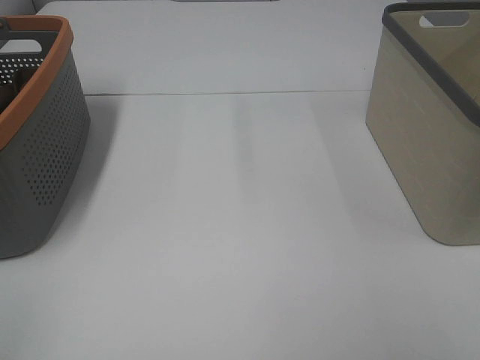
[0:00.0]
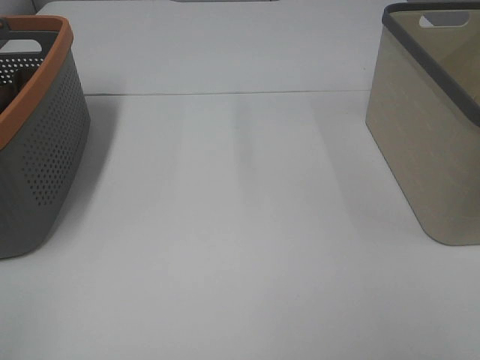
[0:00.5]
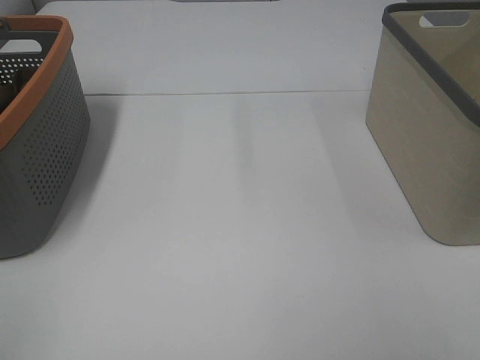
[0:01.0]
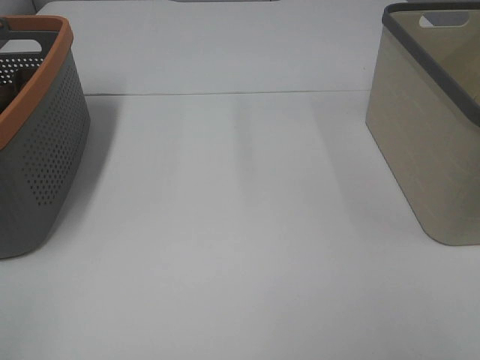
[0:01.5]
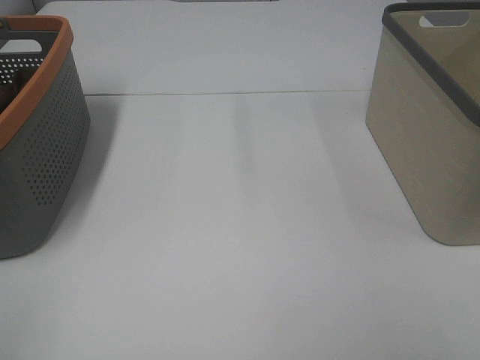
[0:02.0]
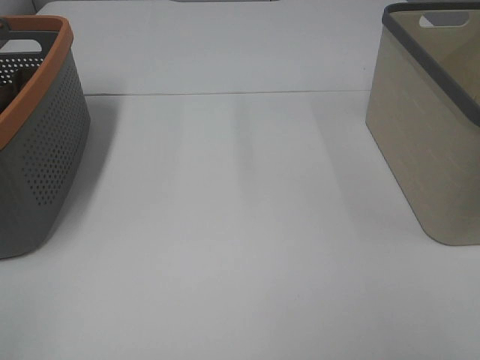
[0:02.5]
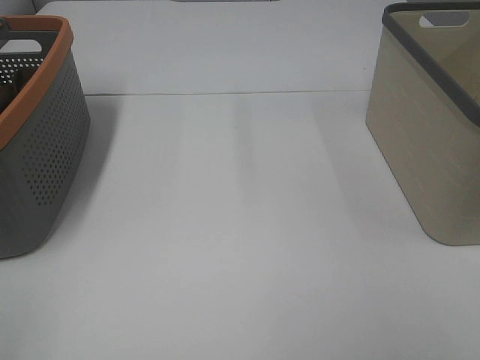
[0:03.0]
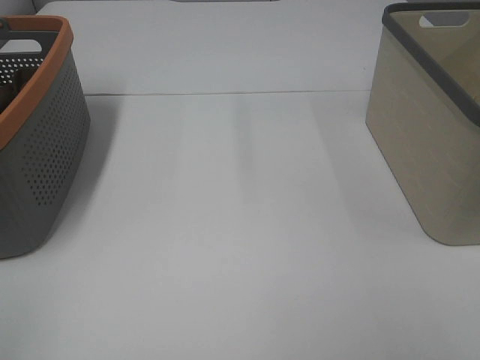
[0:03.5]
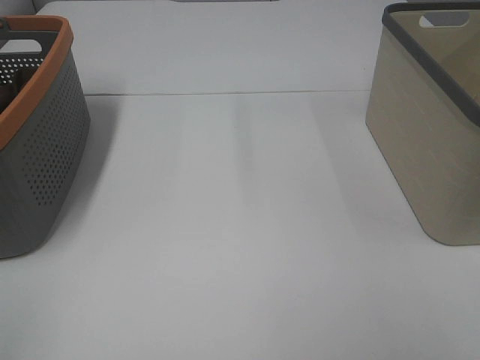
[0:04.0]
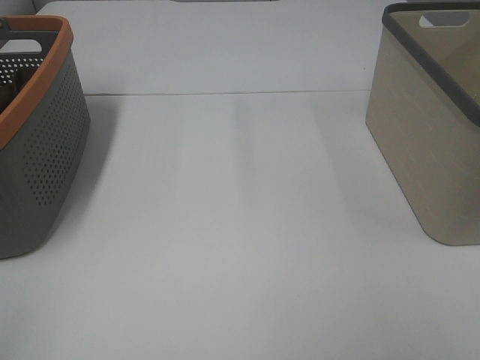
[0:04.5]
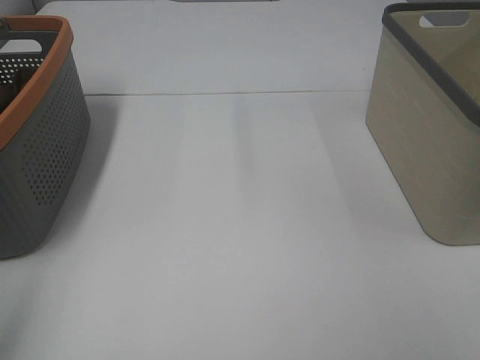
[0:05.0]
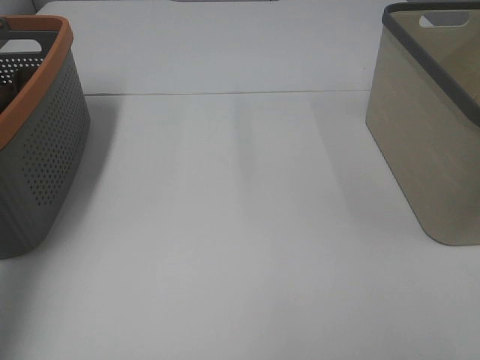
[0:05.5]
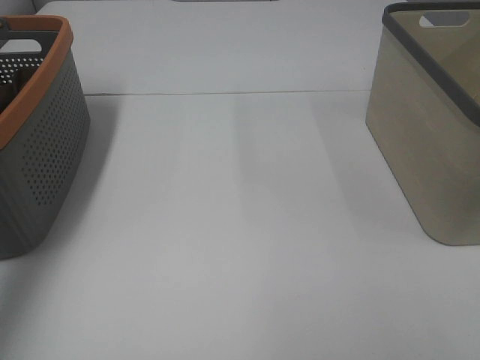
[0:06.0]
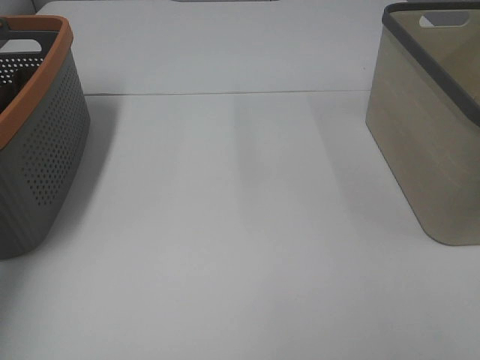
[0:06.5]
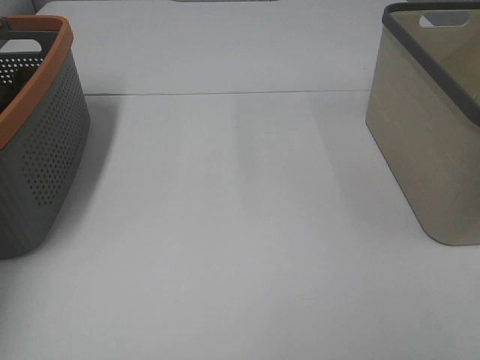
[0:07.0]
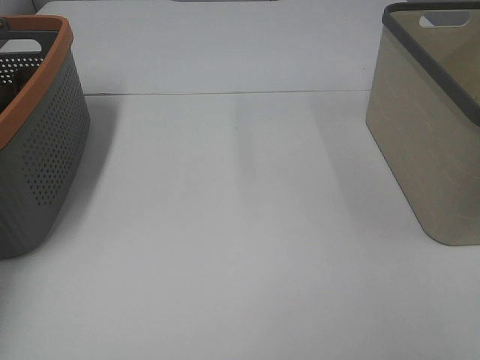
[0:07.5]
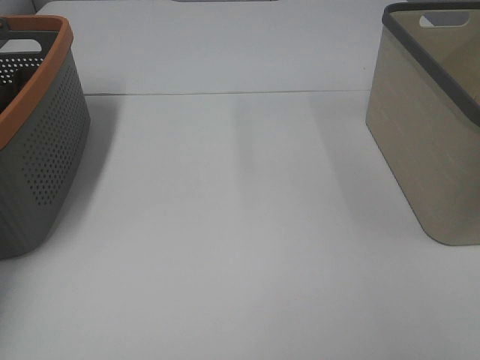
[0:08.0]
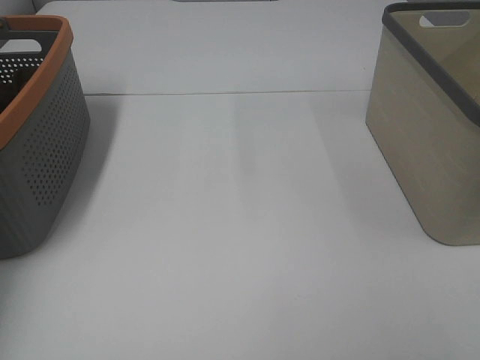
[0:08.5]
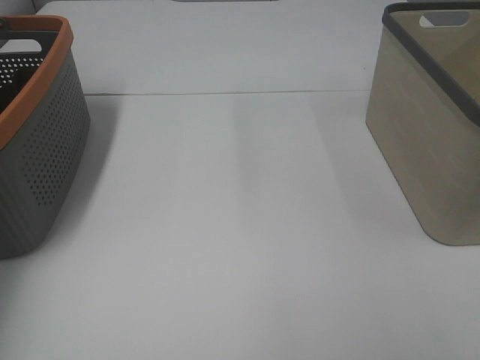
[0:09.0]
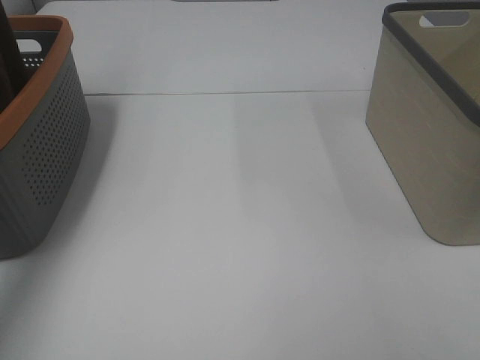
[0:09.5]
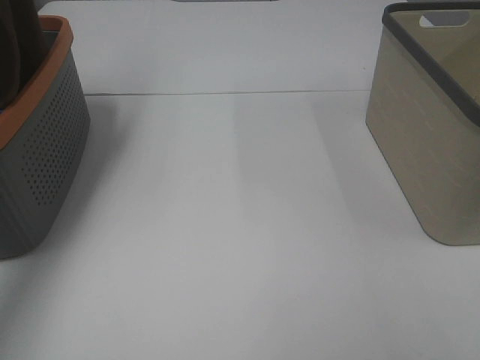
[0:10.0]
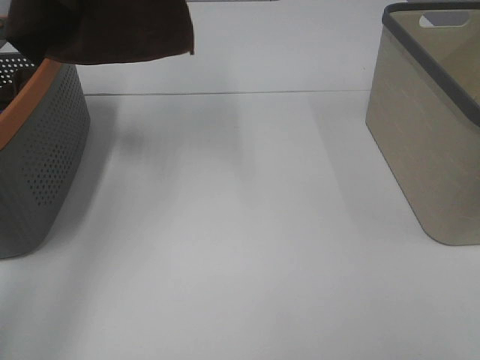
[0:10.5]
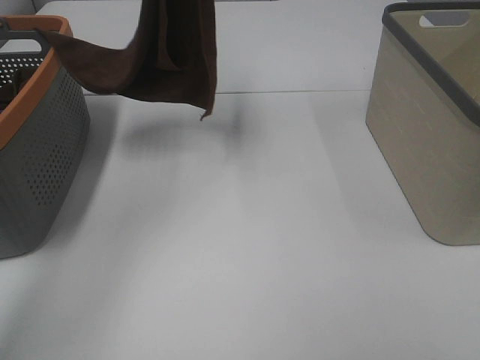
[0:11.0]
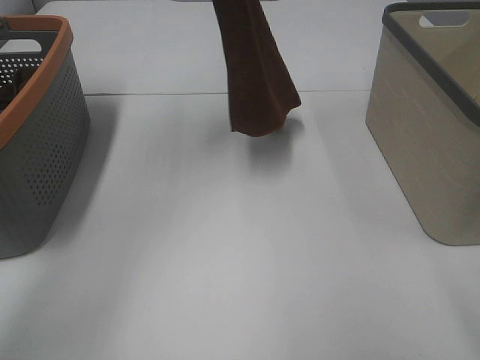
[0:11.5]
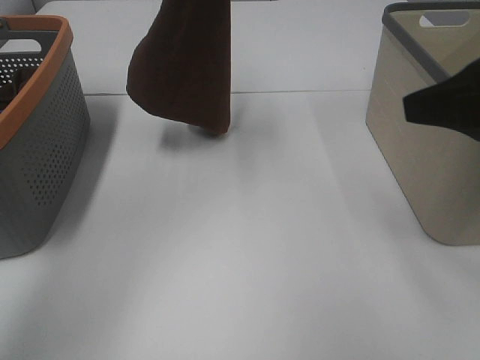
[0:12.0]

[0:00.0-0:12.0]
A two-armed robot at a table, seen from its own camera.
Task of the whole recording: Remove the towel and place it.
0:00.0 to 0:04.0: Both grippers stay about where they are.
0:04.0 to 0:06.0: The left gripper is displaced forward by about 35 cm.
0:06.0 to 0:08.0: The left gripper goes approximately 15 cm downward, forward and to the left, and closes up.
0:08.0 to 0:10.0: The left gripper heads upward, covering some 30 cm.
0:10.0 to 0:12.0: The right gripper travels forward by roughly 20 cm. Meanwhile the left gripper is displaced to the right and downward by roughly 20 cm.

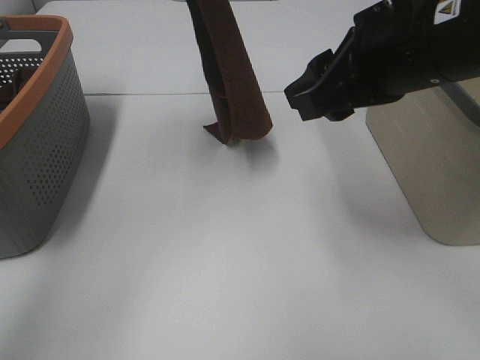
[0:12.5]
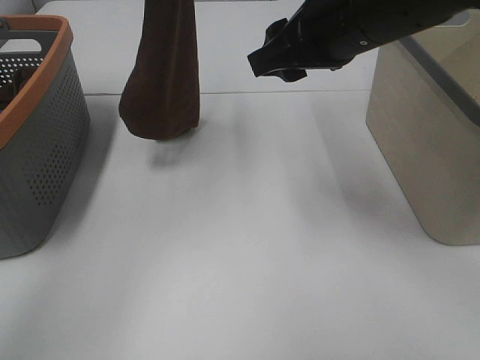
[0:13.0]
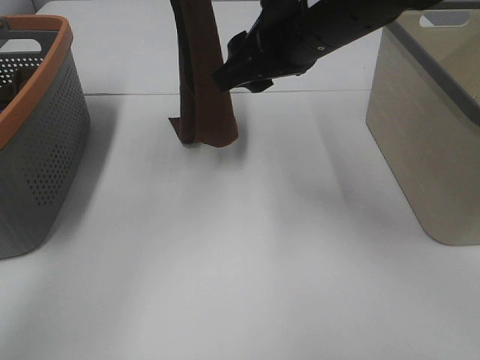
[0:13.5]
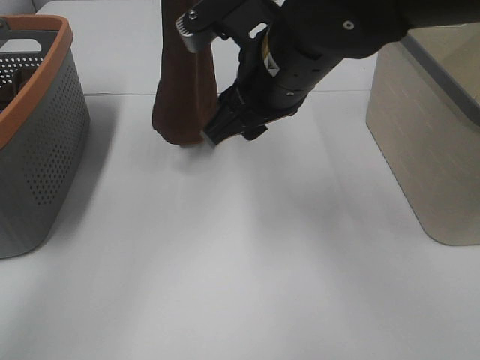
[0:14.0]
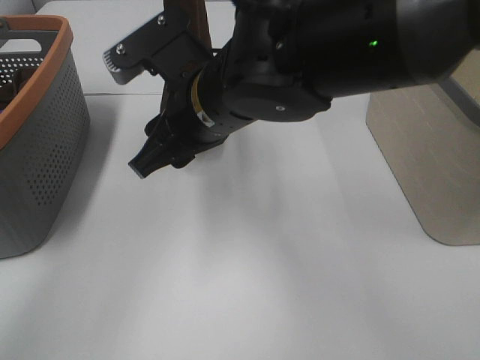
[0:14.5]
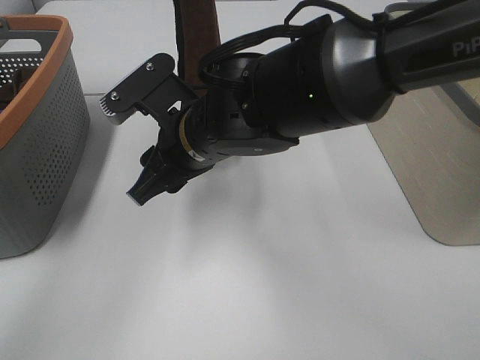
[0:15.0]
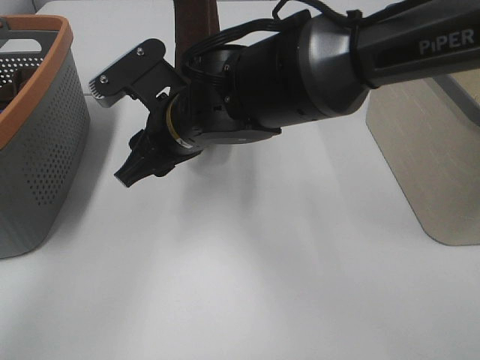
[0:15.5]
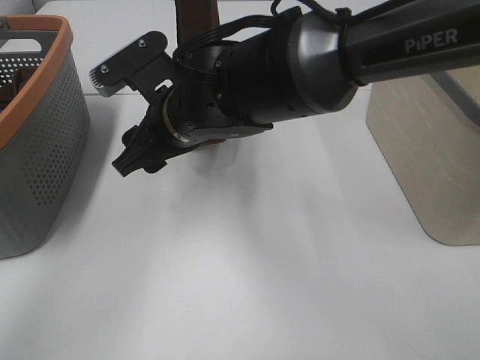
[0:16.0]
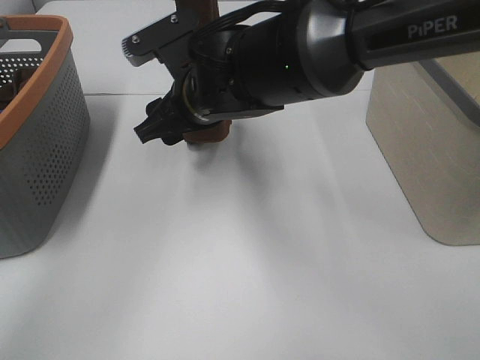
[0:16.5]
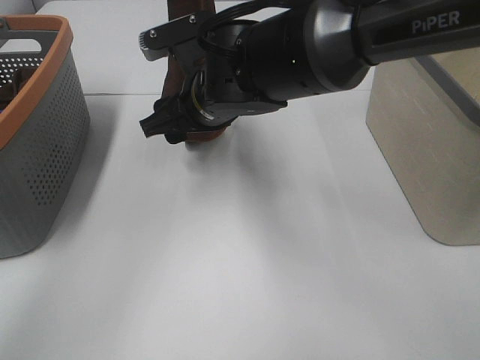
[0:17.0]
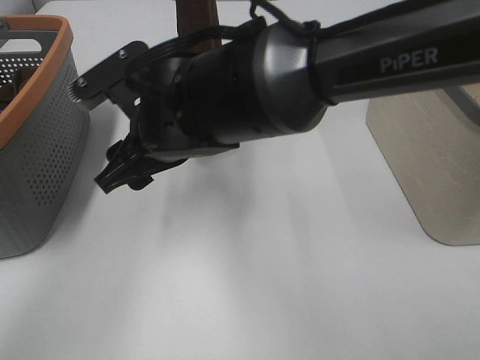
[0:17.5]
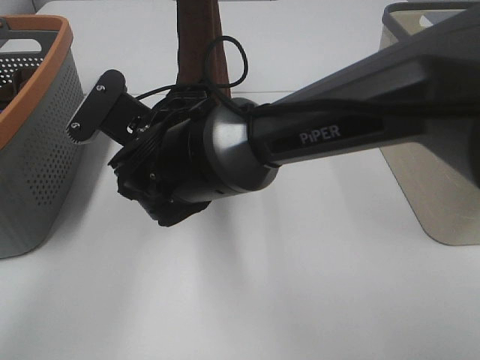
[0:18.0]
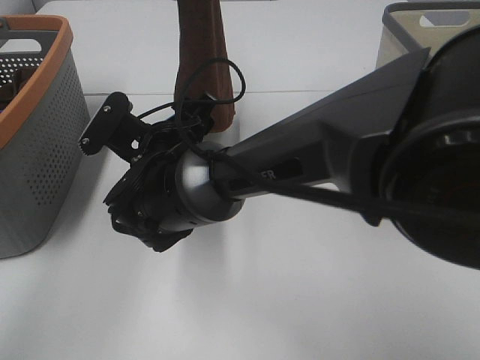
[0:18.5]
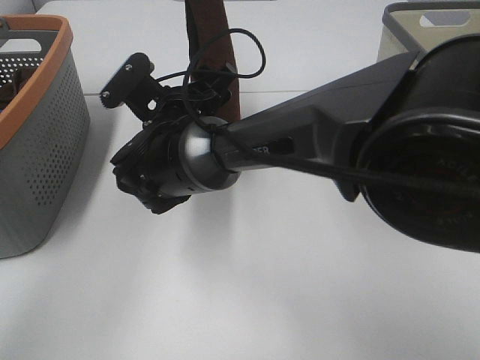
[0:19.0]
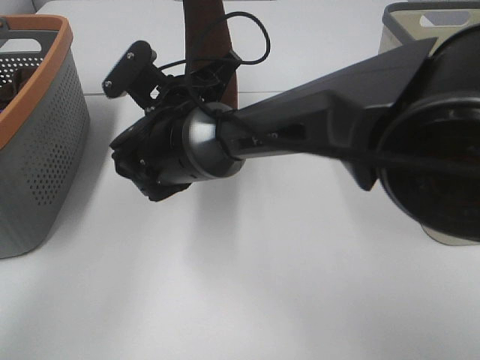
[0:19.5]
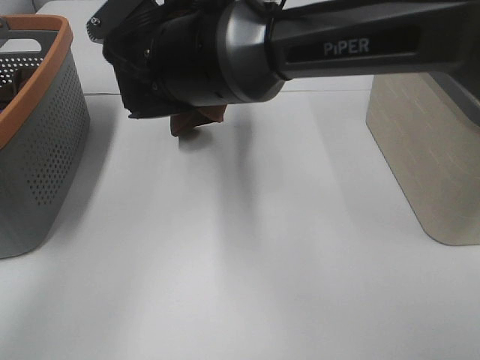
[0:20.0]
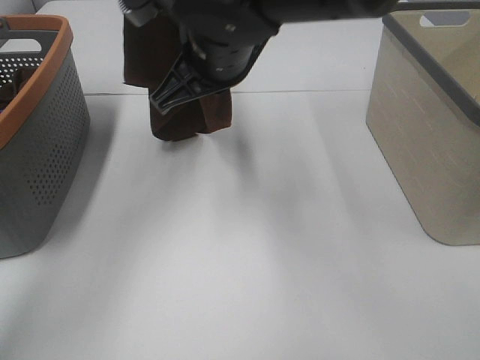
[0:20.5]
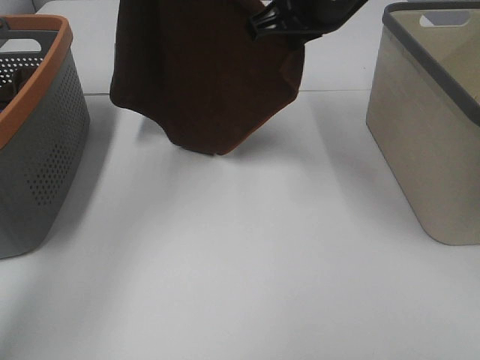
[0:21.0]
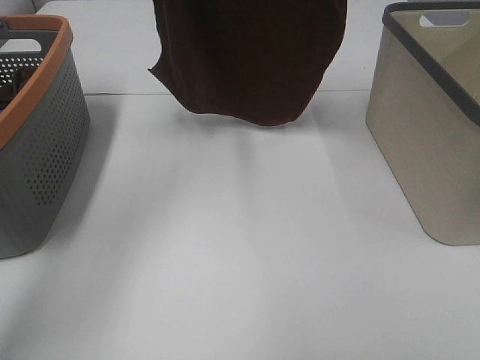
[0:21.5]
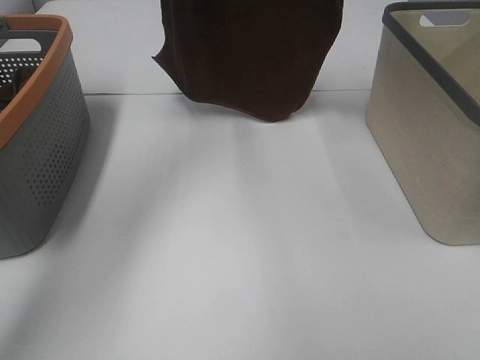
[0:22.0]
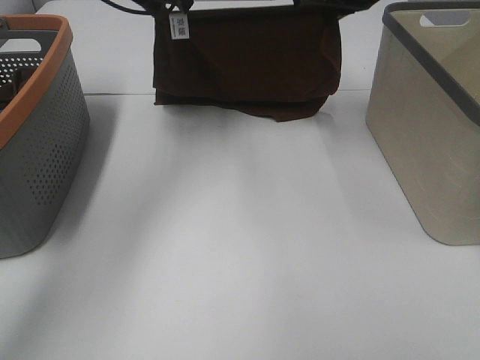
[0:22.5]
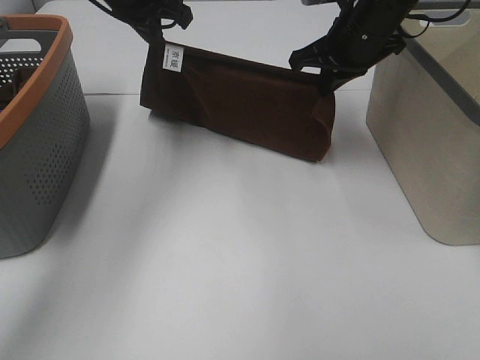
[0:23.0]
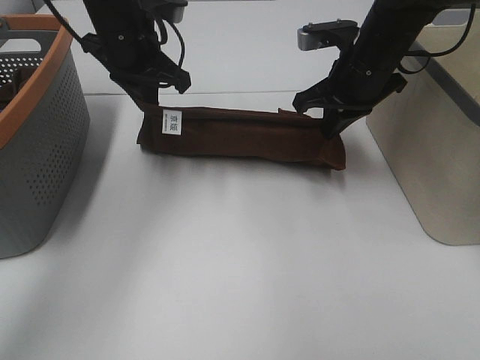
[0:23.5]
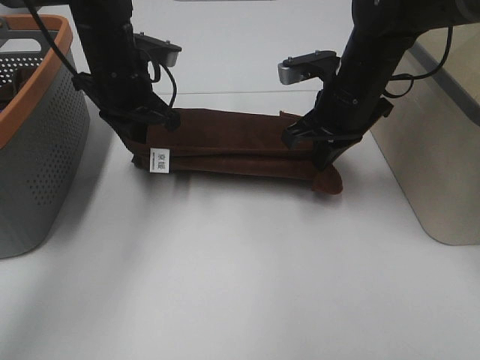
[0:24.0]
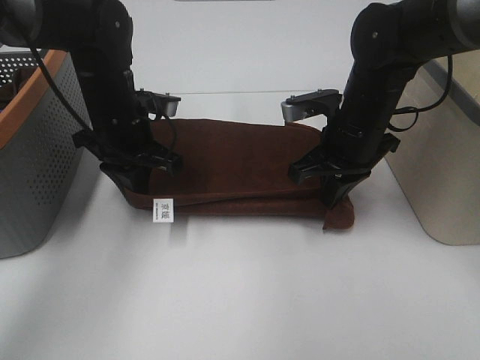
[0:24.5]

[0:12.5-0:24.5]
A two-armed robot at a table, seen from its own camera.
Task of the whole recording: Remove the towel and place it.
Step, 0:12.5 to 0:17.0: Right hand: grab a corner of the brown towel and straighten it.
Step, 0:17.5 to 0:19.5: Right hand: spread the brown towel flat on the table.
0:12.5 to 0:14.5: The right gripper heads to the left and downward, covering some 20 cm.
0:14.5 to 0:16.5: The right gripper heads forward, covering roughly 5 cm.
0:16.5 to 0:18.5: The right gripper heads downward and to the left, covering some 10 cm.
0:18.5 to 0:20.5: The right gripper goes some 20 cm upward and to the right, and closes. Meanwhile the left gripper travels to the left by approximately 5 cm.
0:20.5 to 0:22.5: The right gripper heads to the right and forward, covering roughly 20 cm; the left gripper shifts about 10 cm downward.
0:22.5 to 0:24.5: The two grippers go approximately 20 cm downward and backward.

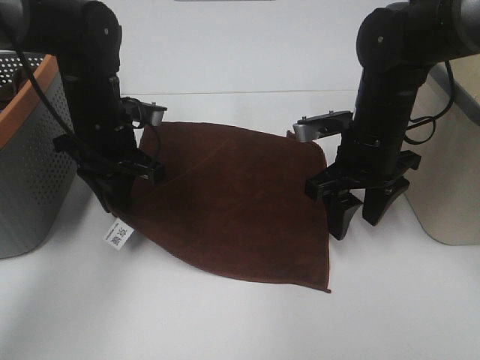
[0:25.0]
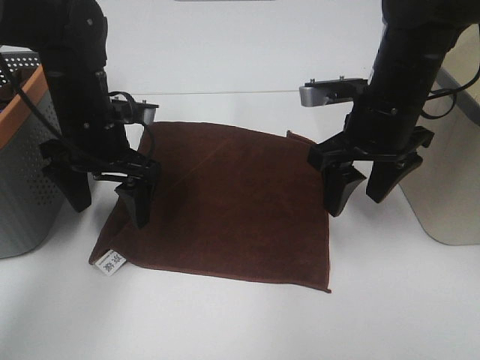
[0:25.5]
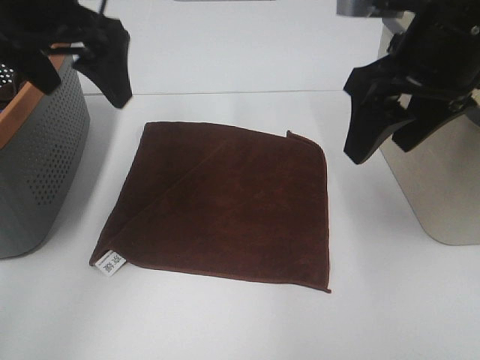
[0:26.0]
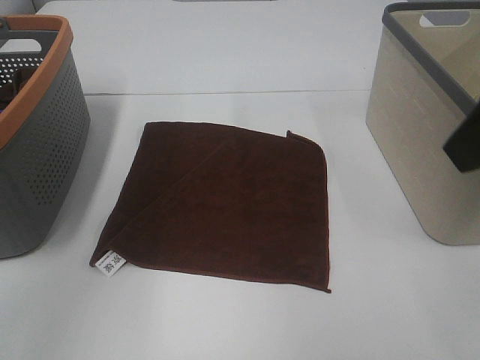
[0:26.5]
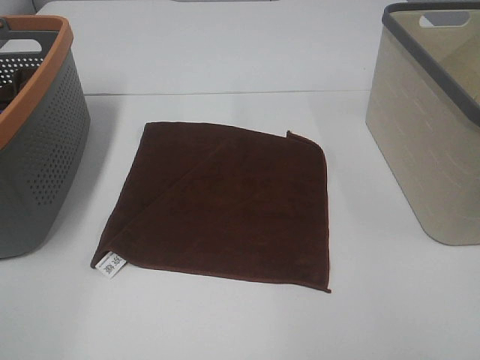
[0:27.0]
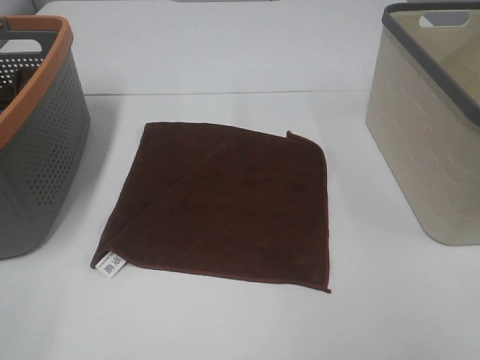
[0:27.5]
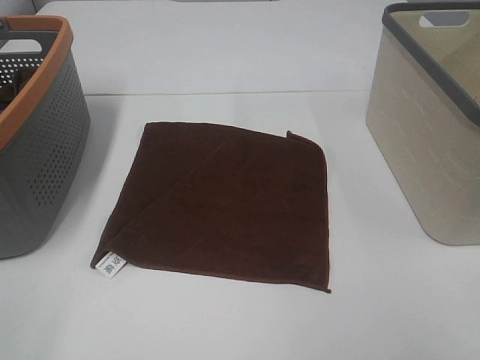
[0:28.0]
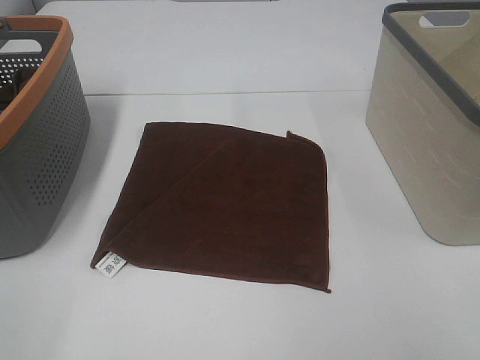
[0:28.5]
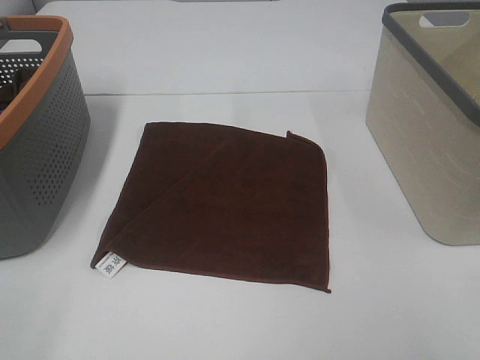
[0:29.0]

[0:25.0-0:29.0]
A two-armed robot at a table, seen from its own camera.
Task of the whole recording: Remove the towel and place it.
0:25.0 to 0:27.0: The left gripper moves backward, upward and to the left, roughly 40 cm, and opens up, while the right gripper shifts some 30 cm backward and upward.
